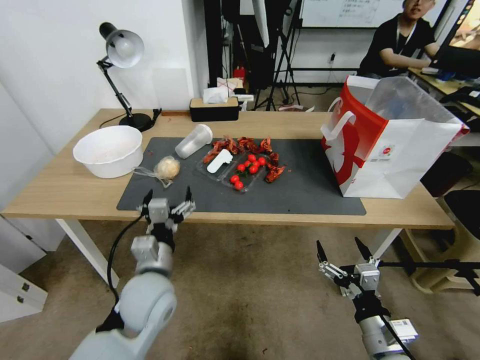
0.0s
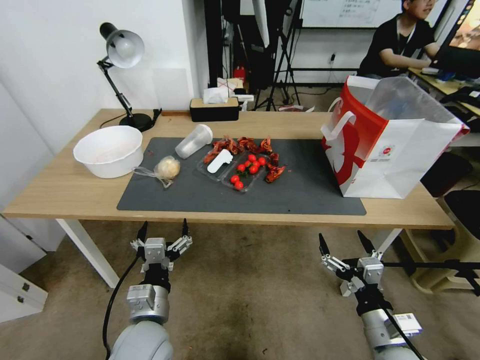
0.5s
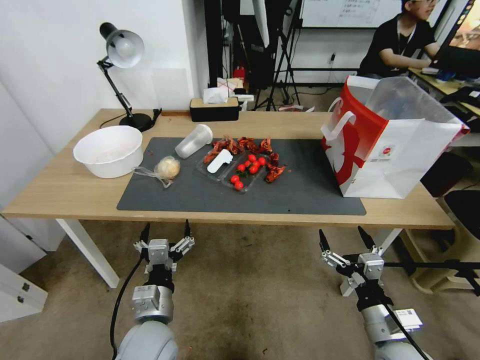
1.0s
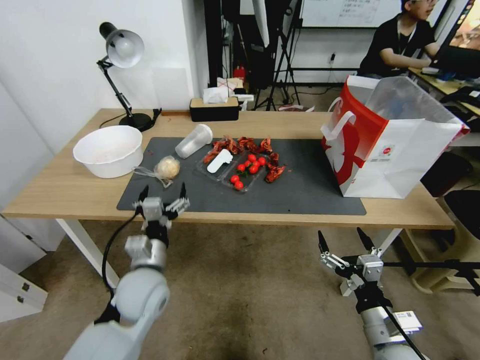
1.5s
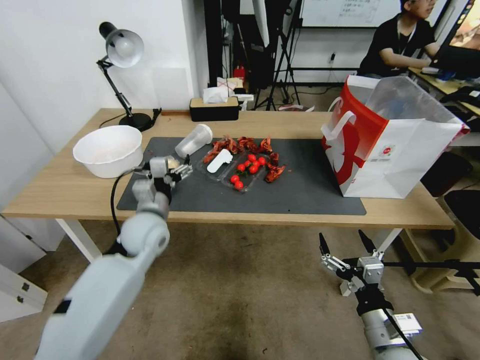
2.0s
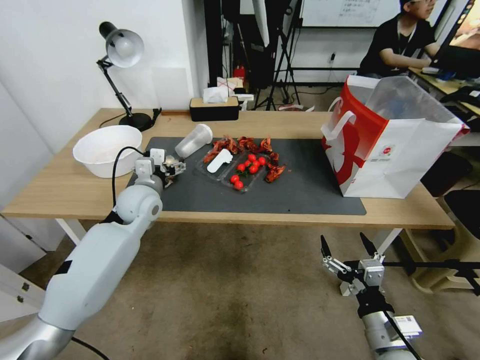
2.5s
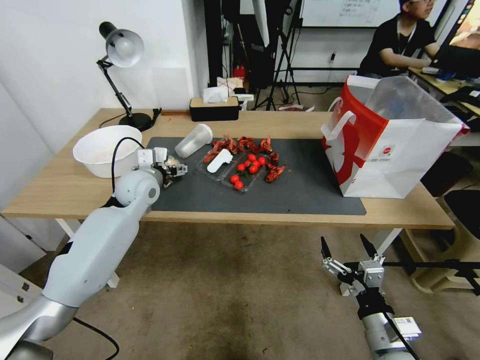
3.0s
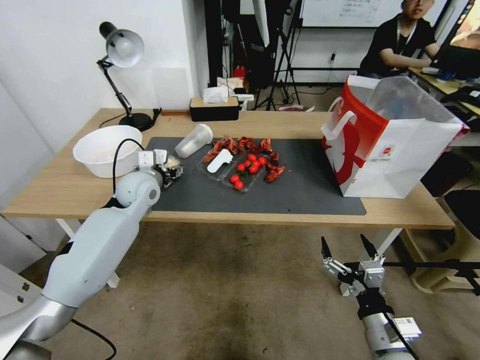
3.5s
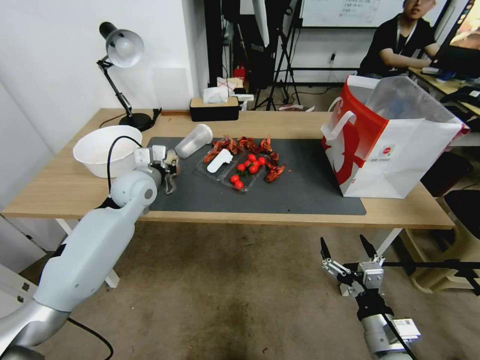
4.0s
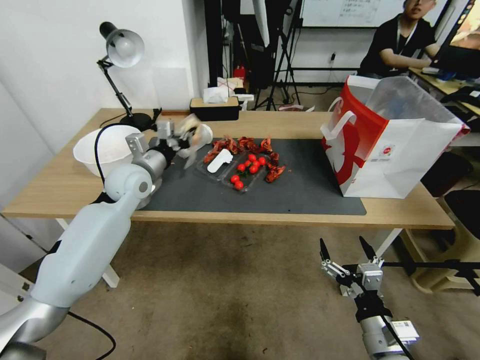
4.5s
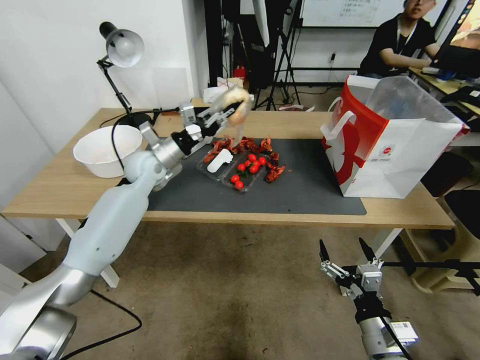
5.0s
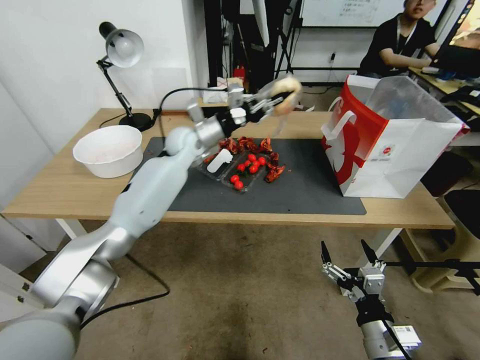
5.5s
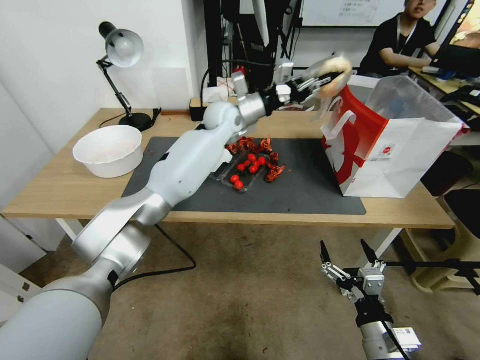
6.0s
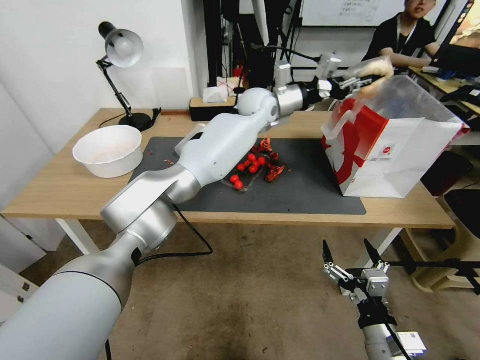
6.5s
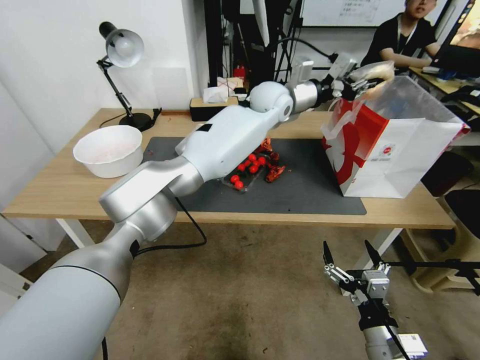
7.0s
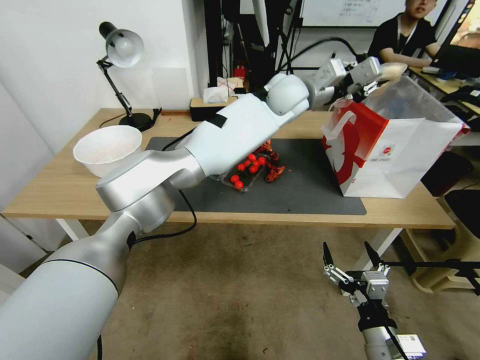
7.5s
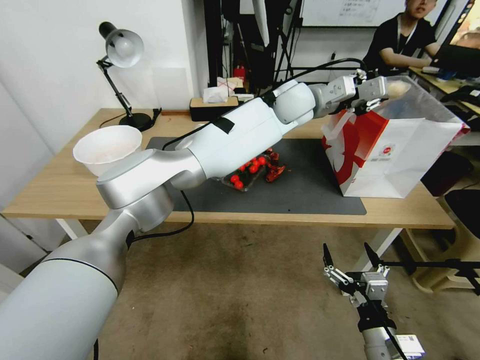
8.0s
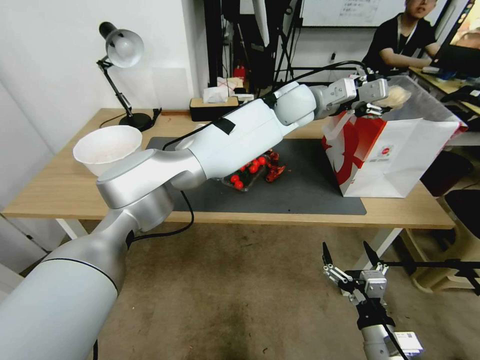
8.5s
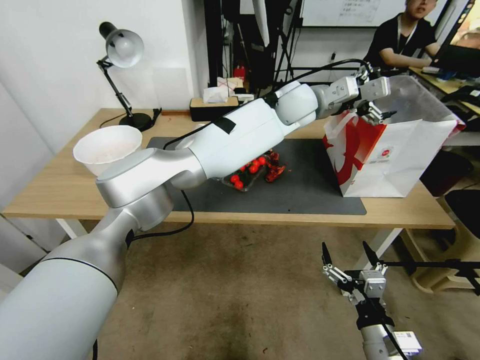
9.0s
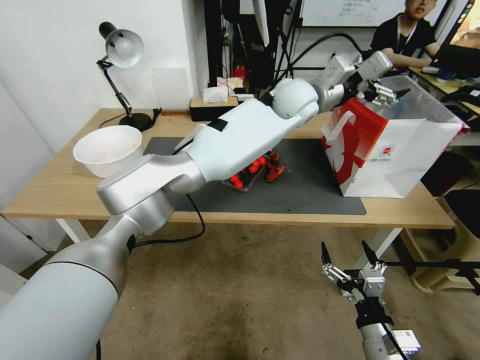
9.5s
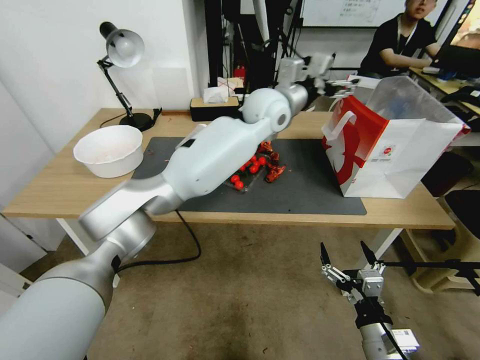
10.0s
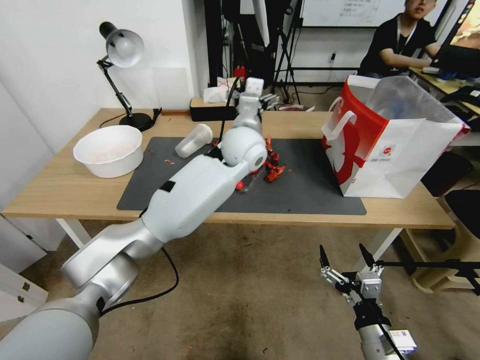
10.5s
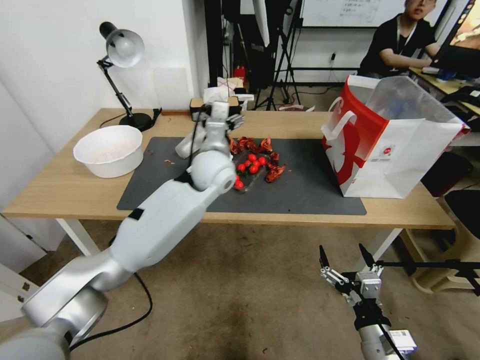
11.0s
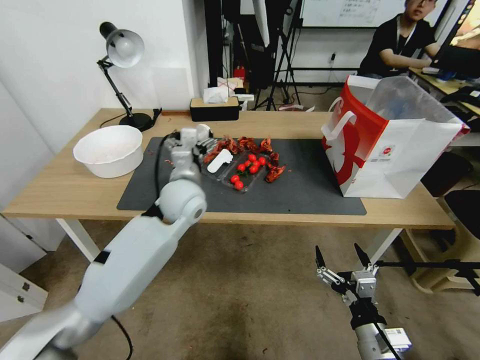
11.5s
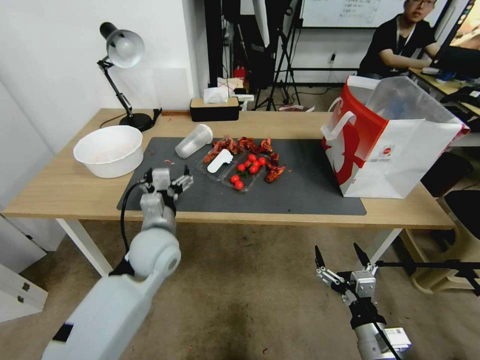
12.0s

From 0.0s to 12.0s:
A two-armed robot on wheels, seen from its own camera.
From 0.0s to 2.0s: The left gripper goes about 15 cm forward.
From 2.0s to 4.0s: The left gripper goes approximately 10 cm forward, and closes up.
From 4.0s to 6.0s: The left gripper is displaced to the right, forward and upward by about 30 cm.
From 6.0s to 8.0s: The left gripper is displaced to the right and upward by approximately 15 cm.
From 8.0s to 10.0s: The left gripper travels to the left by roughly 5 cm, and opens its fingers.
From 10.0s to 12.0s: The left gripper moves to the left, backward and downward, some 35 cm.

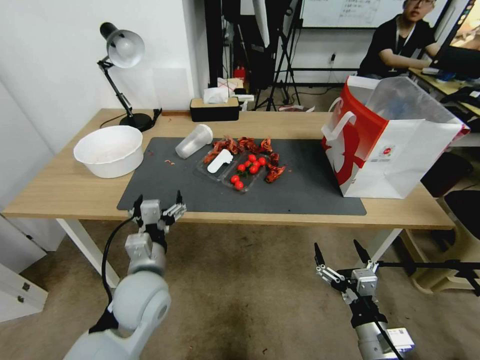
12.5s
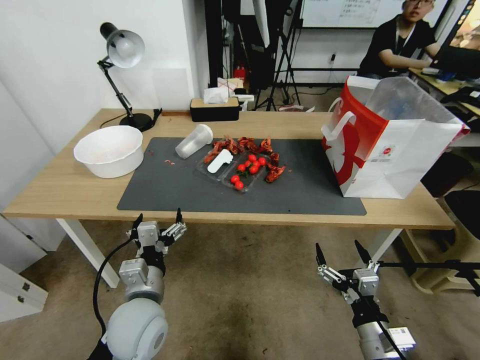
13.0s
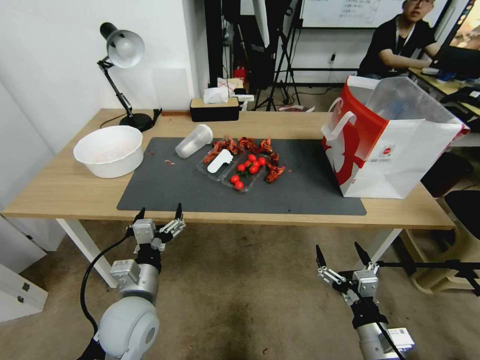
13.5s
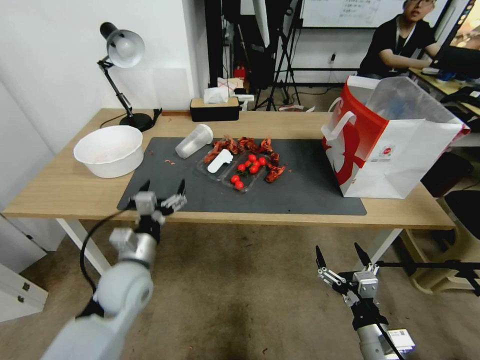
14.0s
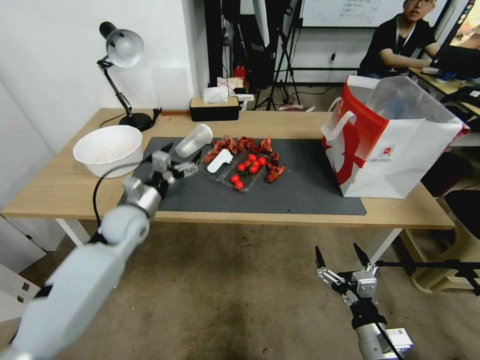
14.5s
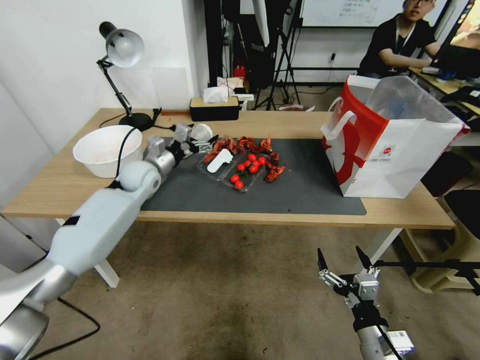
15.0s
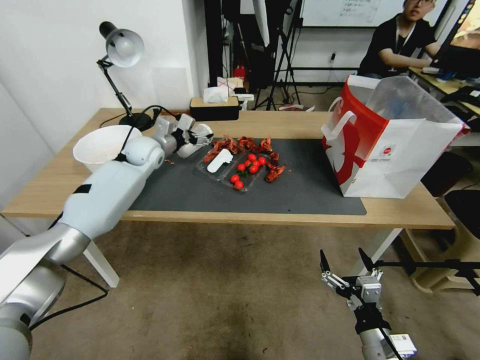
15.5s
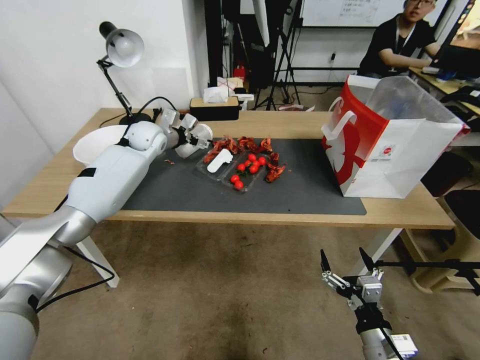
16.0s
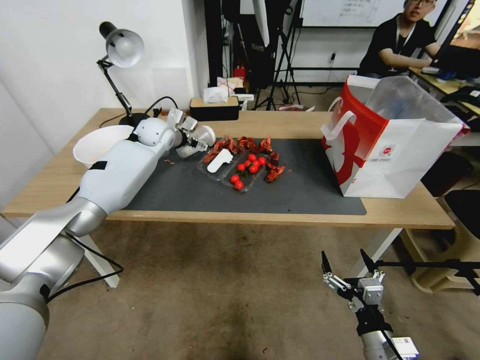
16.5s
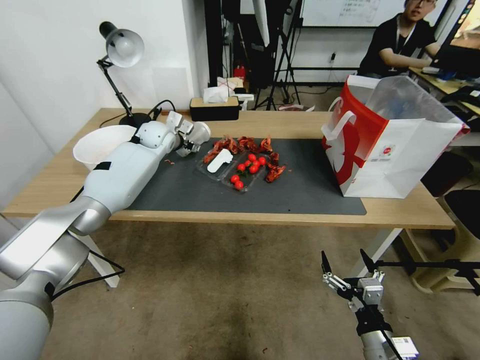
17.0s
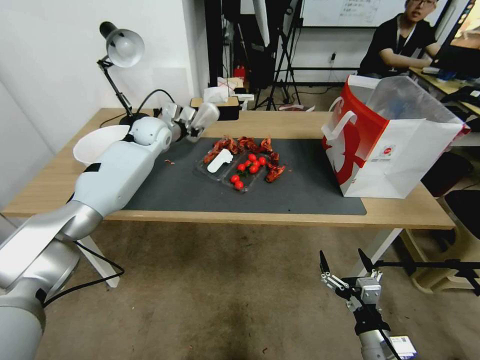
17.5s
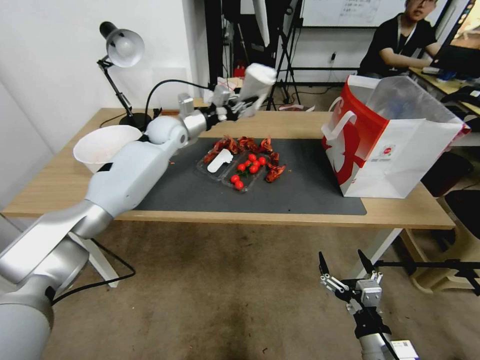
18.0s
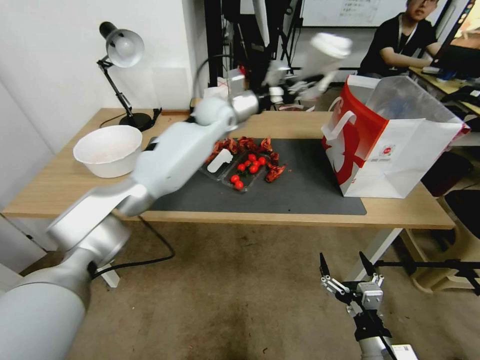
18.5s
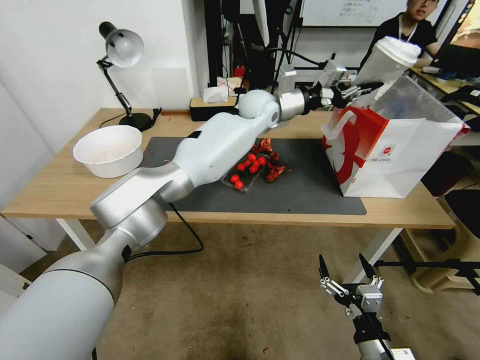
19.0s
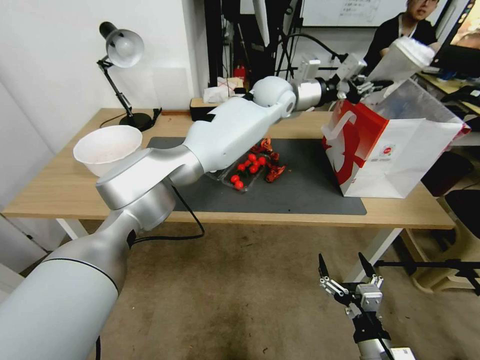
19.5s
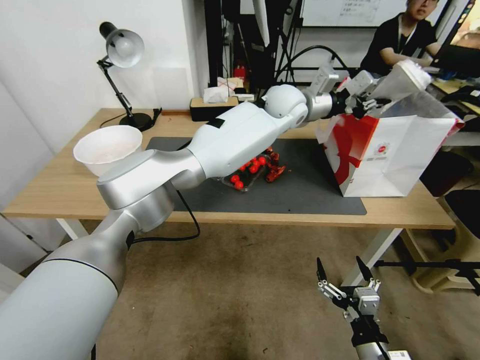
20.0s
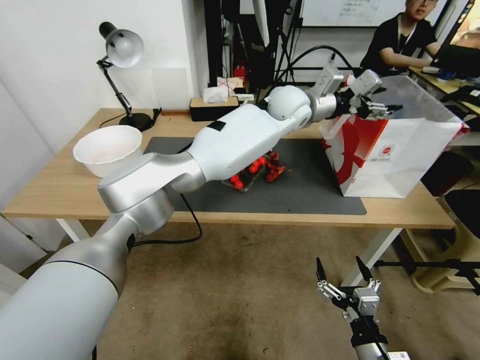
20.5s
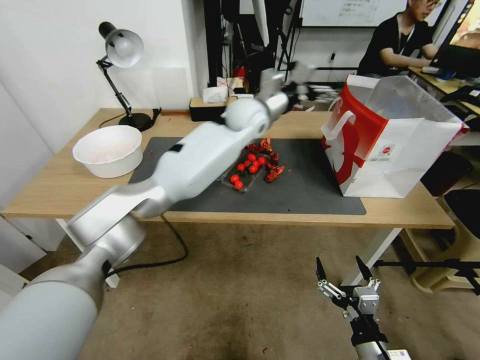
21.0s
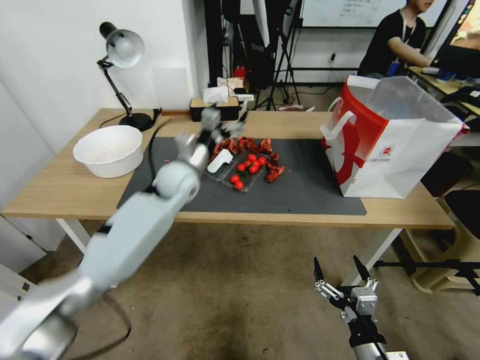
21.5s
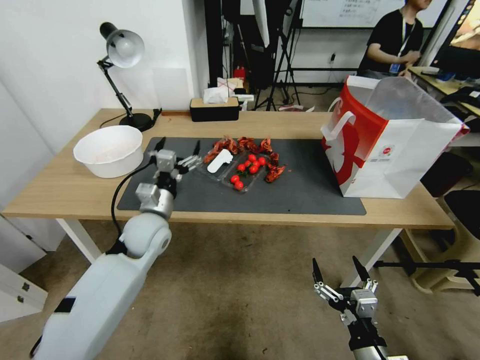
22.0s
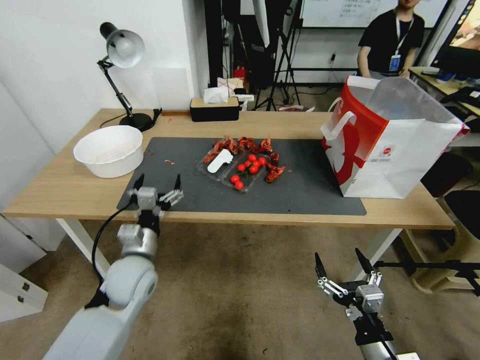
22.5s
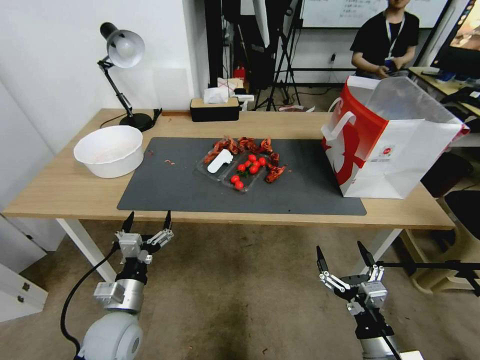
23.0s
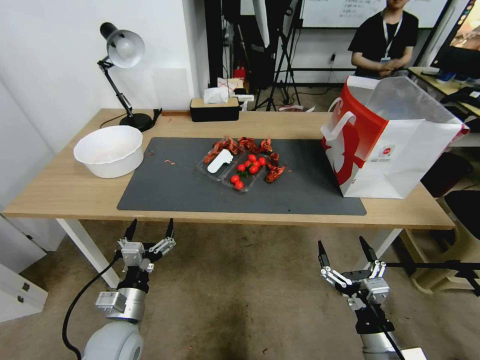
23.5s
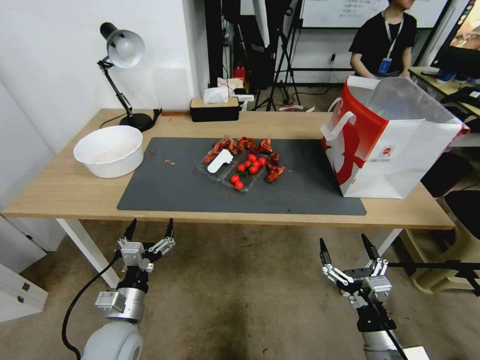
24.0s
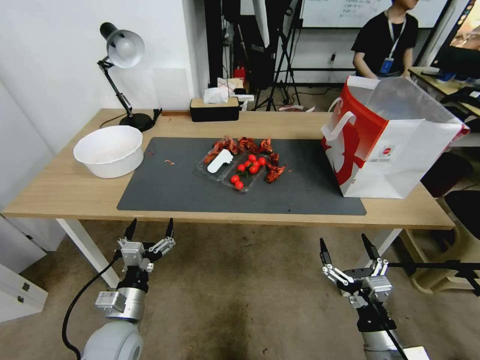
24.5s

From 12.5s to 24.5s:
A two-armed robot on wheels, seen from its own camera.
From 12.5s to 14.5s: The left gripper heads forward and to the left, covering roughly 15 cm.
From 14.5s to 16.5s: The left gripper moves forward and upward, approximately 25 cm.
From 16.5s to 18.5s: The left gripper goes approximately 10 cm to the right, and closes.
From 18.5s to 20.5s: The left gripper is displaced to the right by some 25 cm, and opens up.
From 20.5s to 22.5s: The left gripper shifts some 50 cm to the left, backward and downward.
From 22.5s to 24.5s: The left gripper shifts approximately 15 cm backward and downward.
